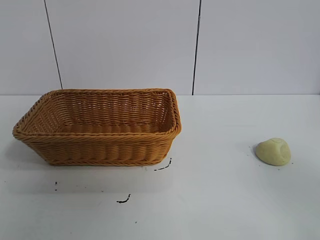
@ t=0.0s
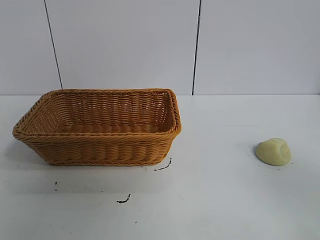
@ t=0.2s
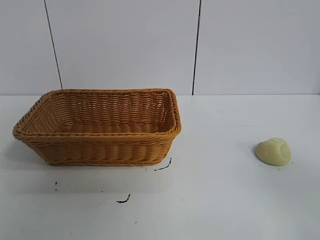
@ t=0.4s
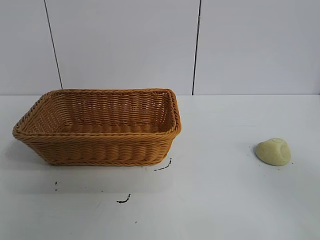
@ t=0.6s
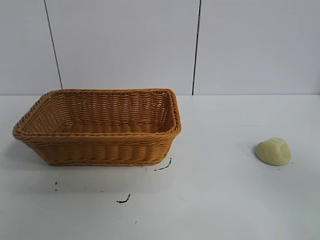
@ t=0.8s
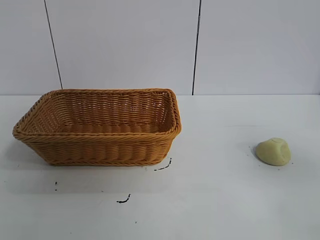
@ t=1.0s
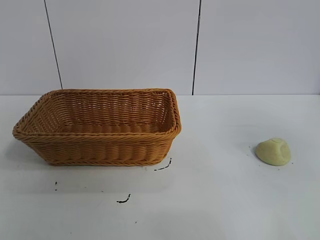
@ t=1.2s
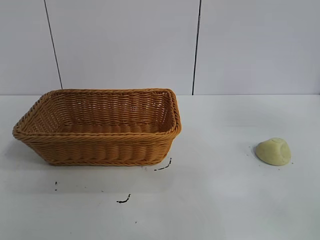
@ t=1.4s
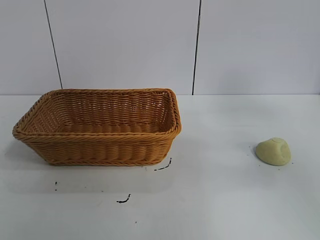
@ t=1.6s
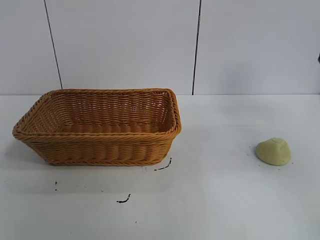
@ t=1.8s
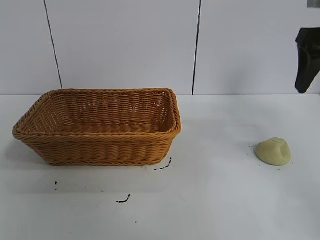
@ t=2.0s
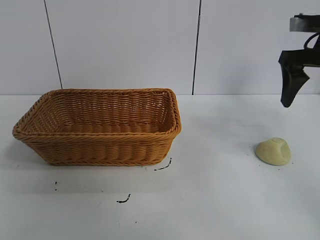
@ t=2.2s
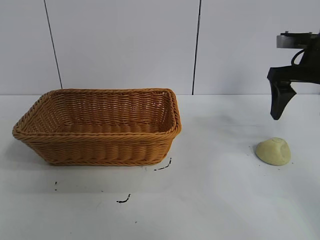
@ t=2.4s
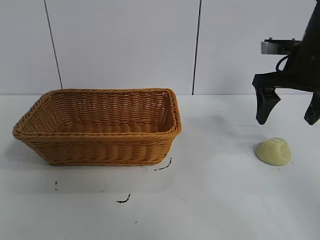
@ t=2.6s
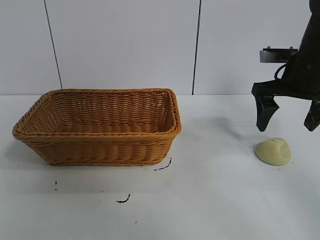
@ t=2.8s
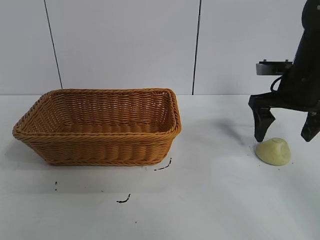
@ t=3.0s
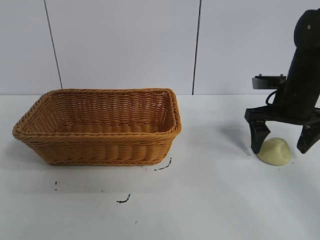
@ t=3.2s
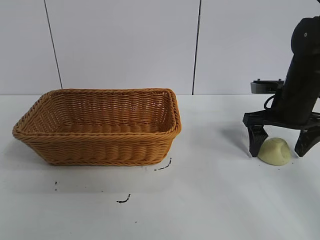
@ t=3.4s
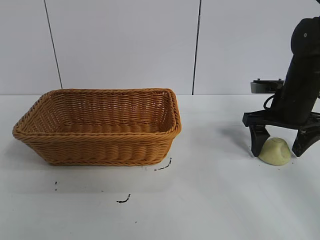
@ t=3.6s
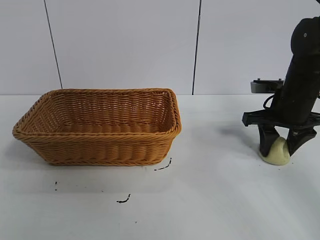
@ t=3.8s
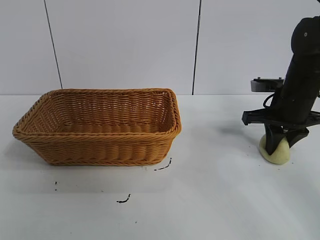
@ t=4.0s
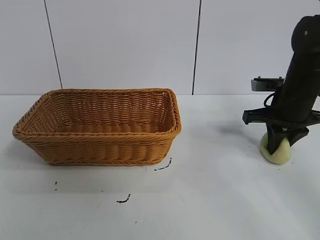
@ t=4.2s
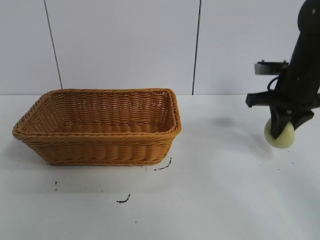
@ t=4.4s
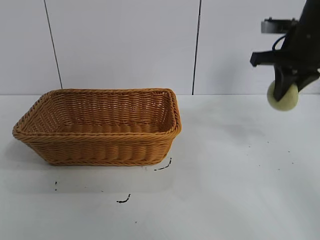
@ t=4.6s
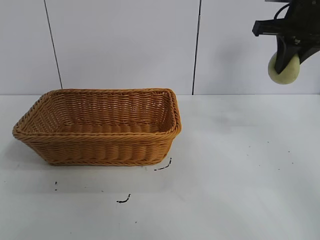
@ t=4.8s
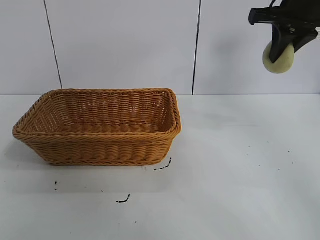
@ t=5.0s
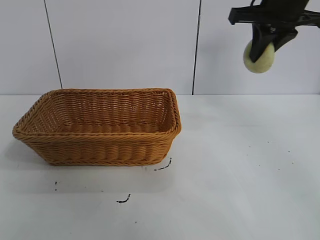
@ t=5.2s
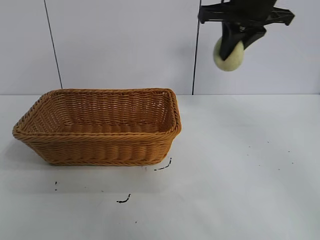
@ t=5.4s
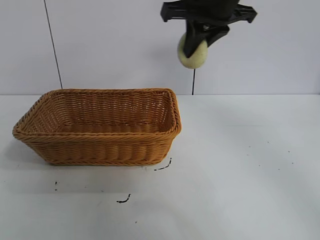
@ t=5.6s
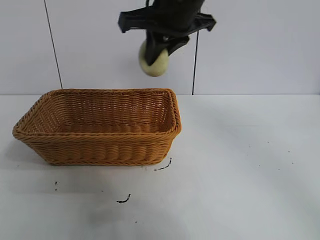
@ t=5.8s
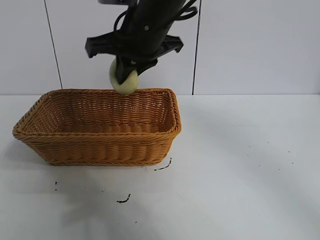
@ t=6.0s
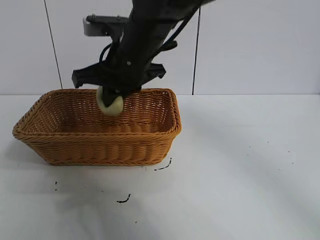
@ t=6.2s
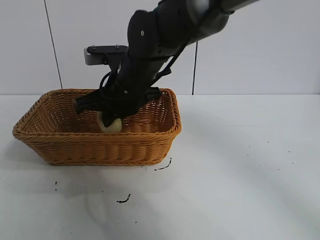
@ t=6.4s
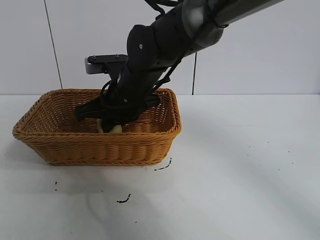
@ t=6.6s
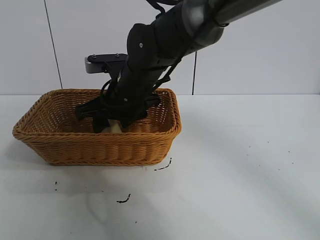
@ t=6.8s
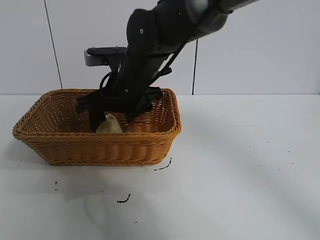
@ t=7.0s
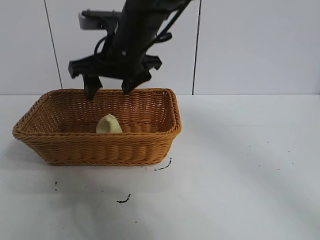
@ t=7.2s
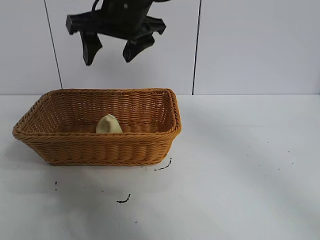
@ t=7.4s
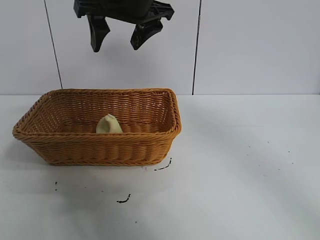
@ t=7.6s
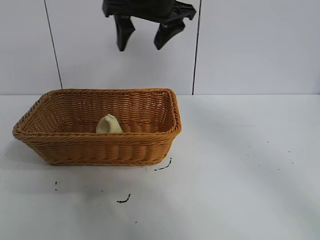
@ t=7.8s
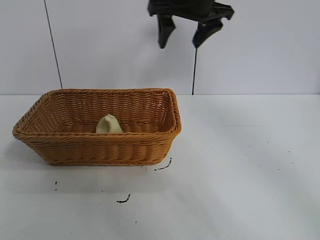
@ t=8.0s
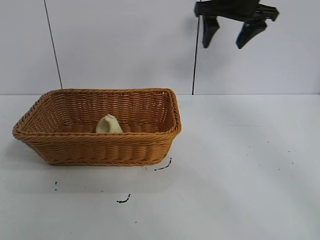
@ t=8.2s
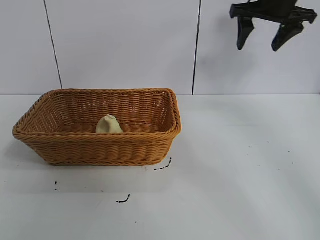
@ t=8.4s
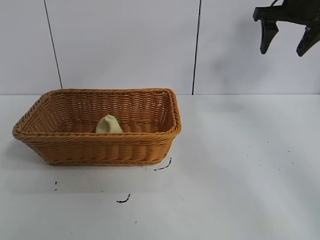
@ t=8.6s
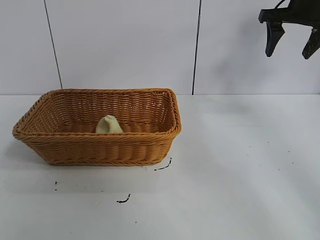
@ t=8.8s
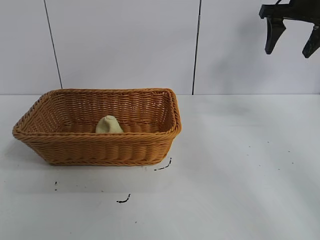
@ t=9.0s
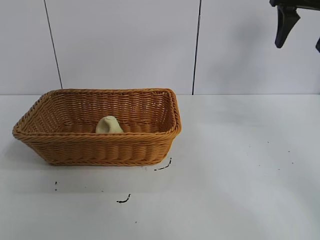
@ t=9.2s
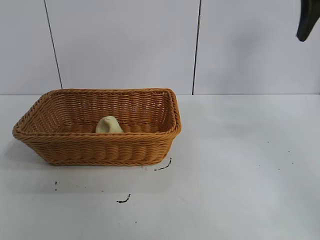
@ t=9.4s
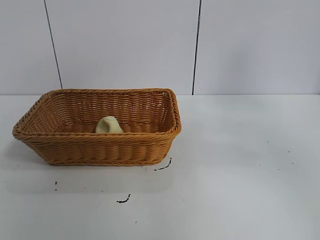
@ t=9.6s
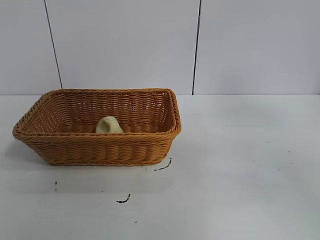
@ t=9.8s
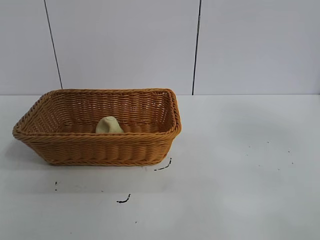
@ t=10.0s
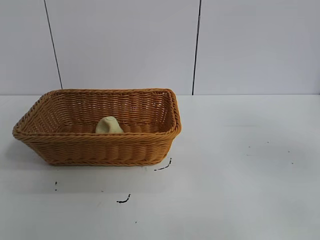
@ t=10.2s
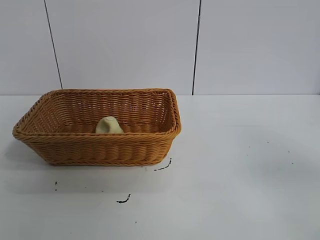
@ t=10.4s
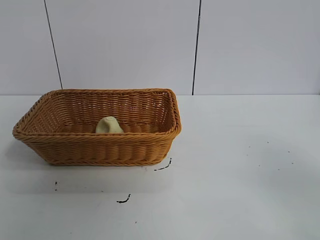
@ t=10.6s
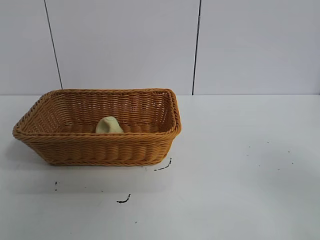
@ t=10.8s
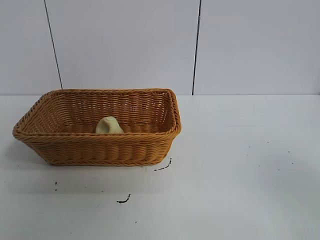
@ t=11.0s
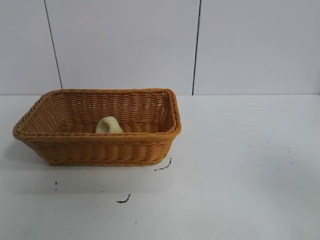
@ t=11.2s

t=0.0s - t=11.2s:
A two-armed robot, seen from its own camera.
Task of the whole recording: pick up the egg yolk pastry and put it into the basket.
Step, t=0.8s - t=4.0s: Grasp egg yolk pastry with right gripper.
Step, t=4.2s - t=7.0s: Place the egg yolk pastry in the basket with right gripper.
